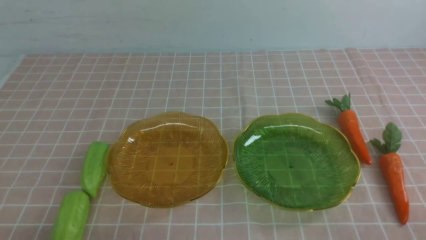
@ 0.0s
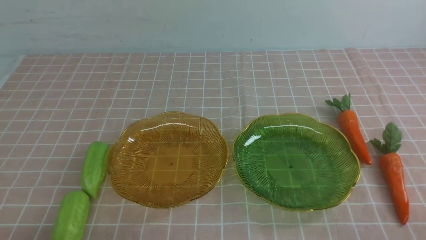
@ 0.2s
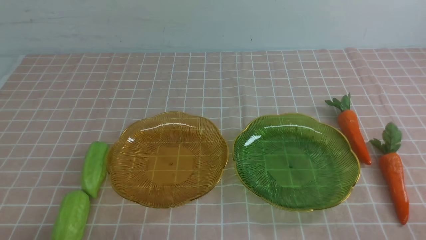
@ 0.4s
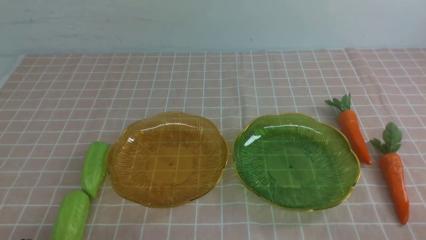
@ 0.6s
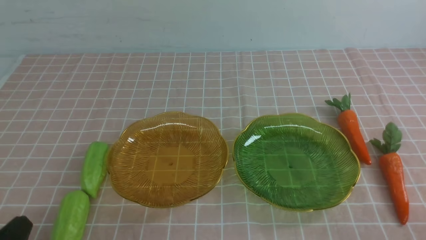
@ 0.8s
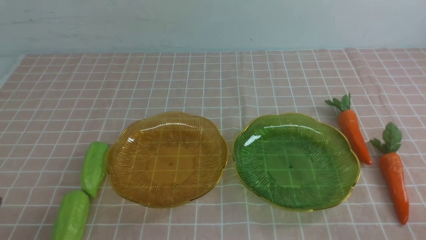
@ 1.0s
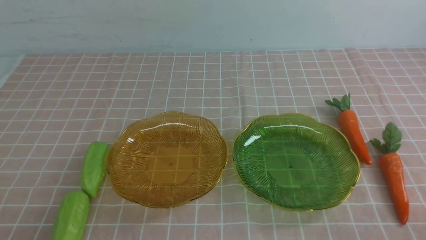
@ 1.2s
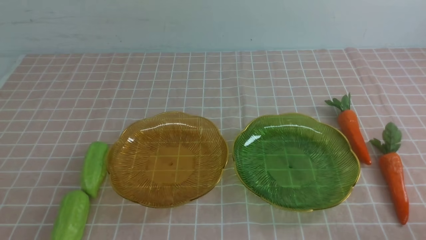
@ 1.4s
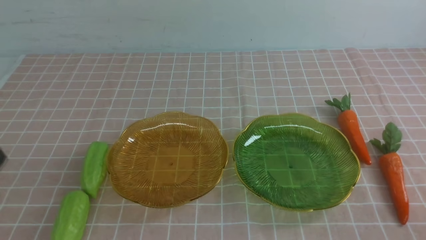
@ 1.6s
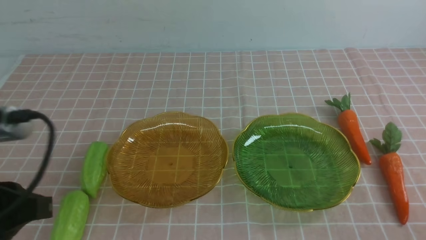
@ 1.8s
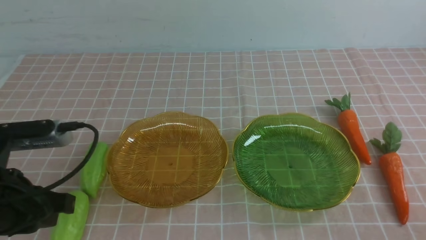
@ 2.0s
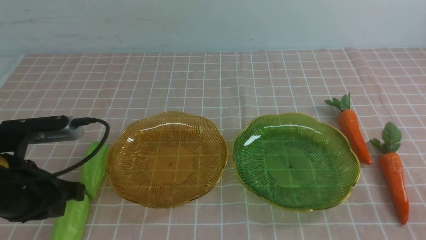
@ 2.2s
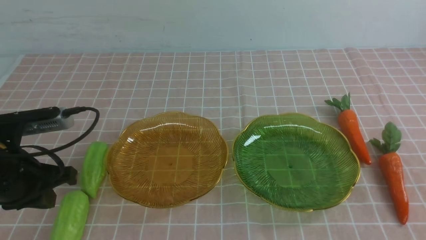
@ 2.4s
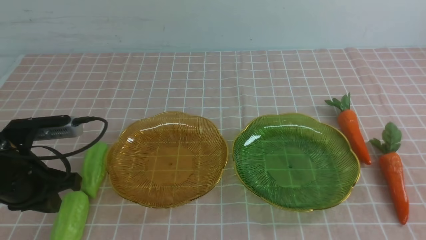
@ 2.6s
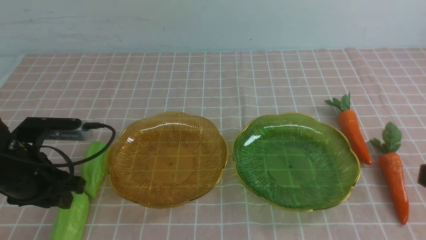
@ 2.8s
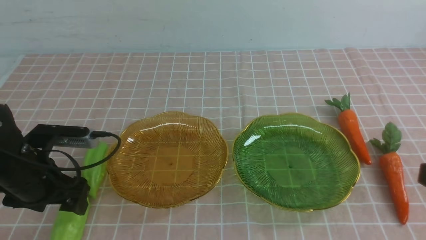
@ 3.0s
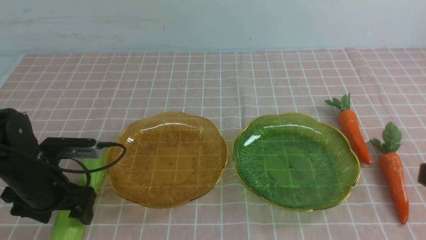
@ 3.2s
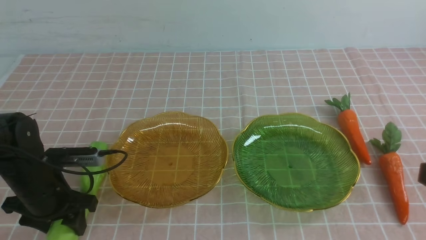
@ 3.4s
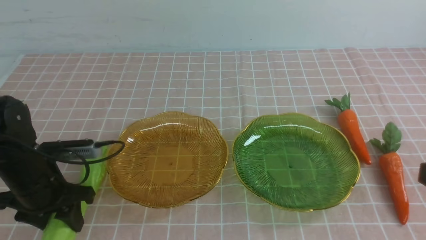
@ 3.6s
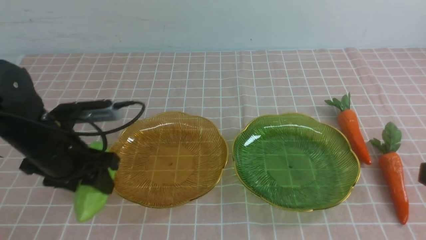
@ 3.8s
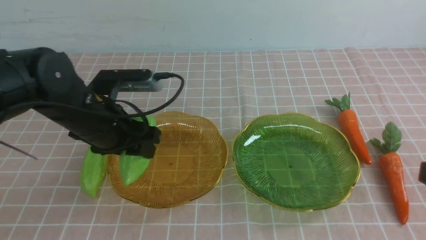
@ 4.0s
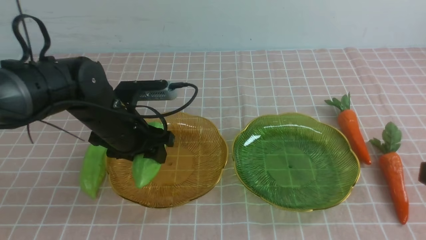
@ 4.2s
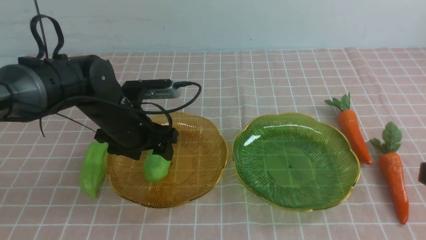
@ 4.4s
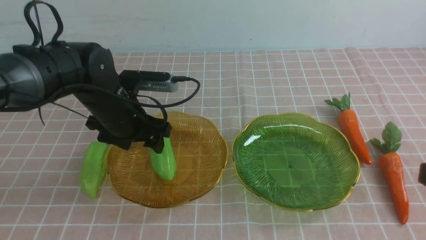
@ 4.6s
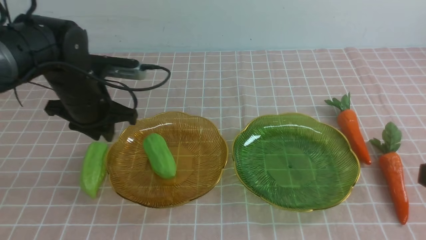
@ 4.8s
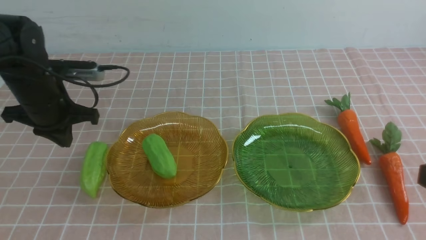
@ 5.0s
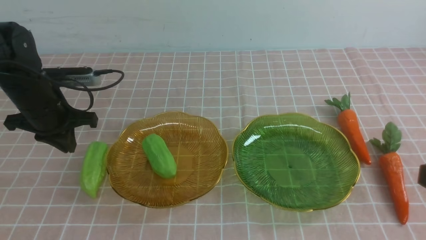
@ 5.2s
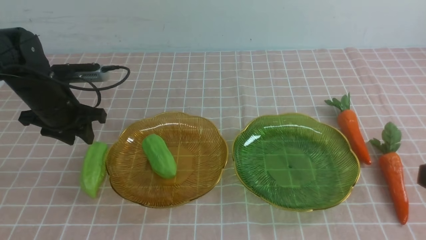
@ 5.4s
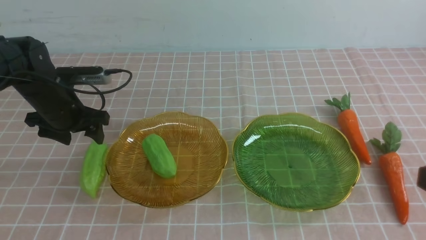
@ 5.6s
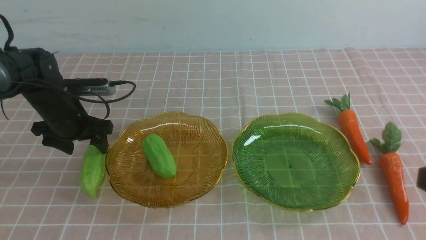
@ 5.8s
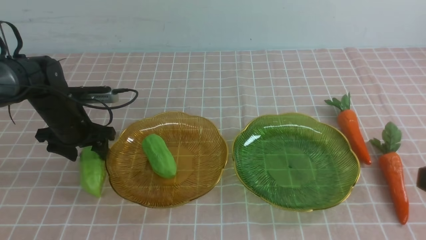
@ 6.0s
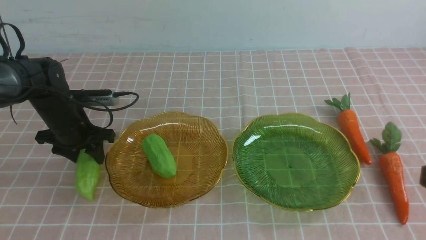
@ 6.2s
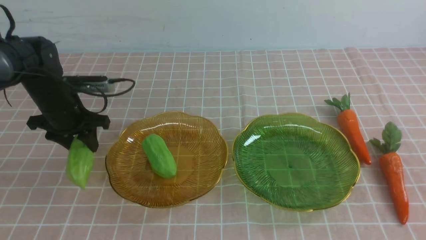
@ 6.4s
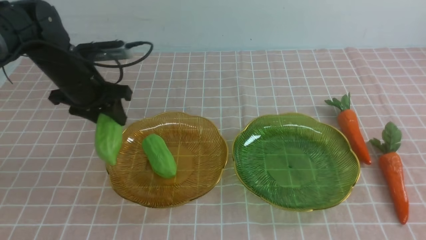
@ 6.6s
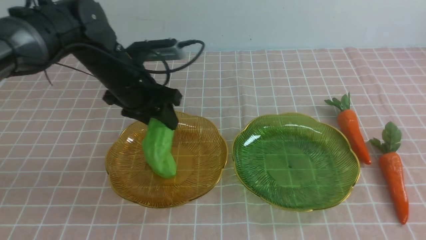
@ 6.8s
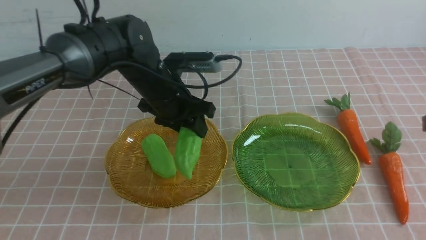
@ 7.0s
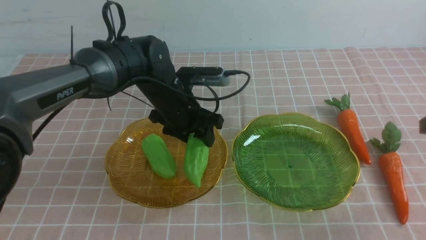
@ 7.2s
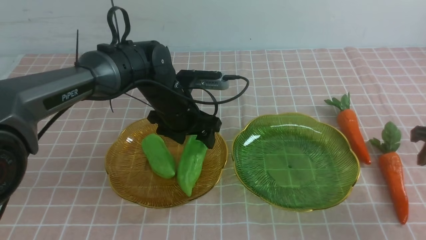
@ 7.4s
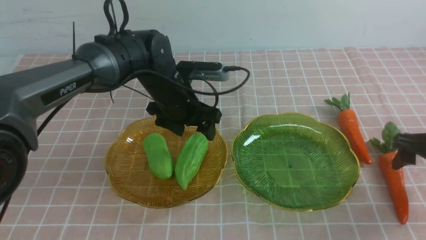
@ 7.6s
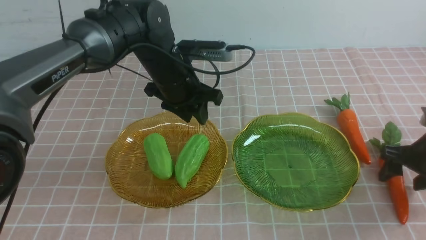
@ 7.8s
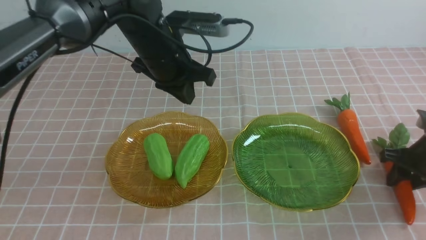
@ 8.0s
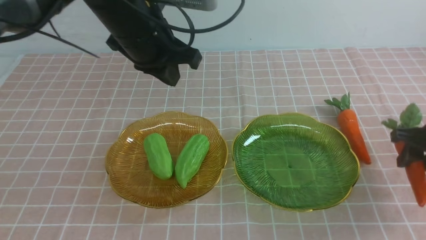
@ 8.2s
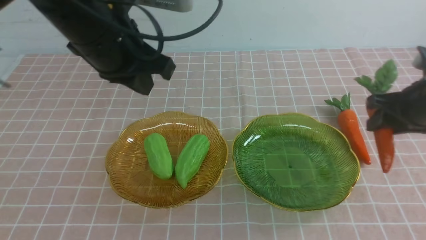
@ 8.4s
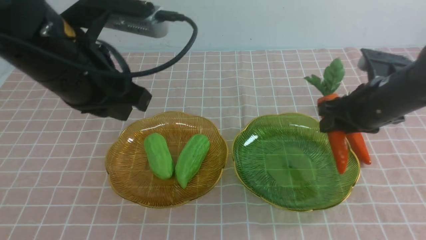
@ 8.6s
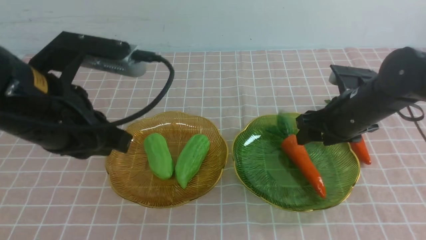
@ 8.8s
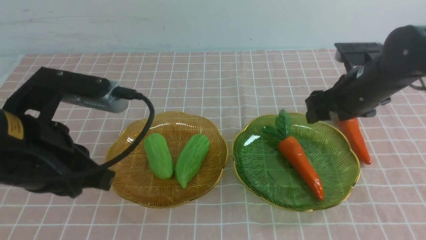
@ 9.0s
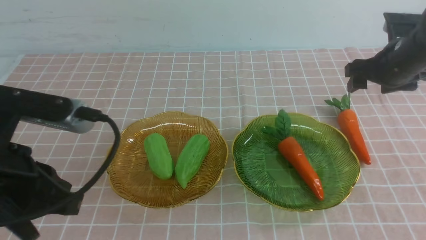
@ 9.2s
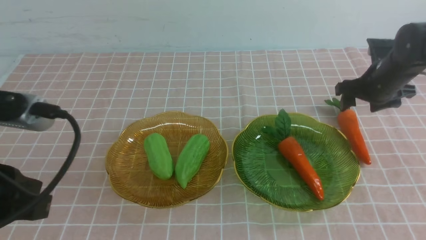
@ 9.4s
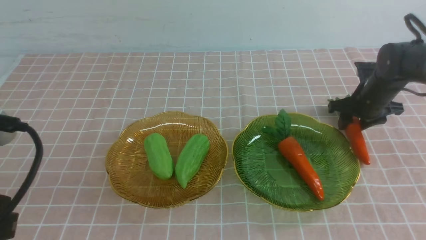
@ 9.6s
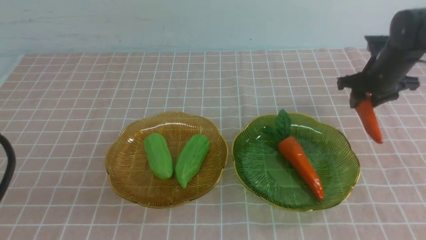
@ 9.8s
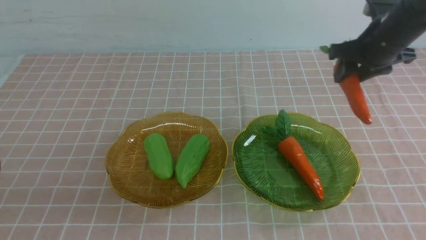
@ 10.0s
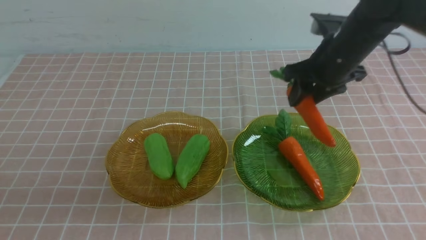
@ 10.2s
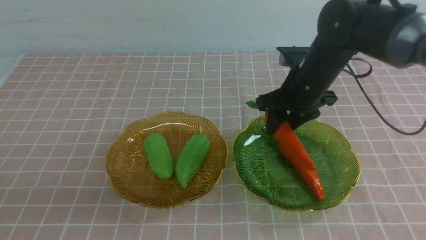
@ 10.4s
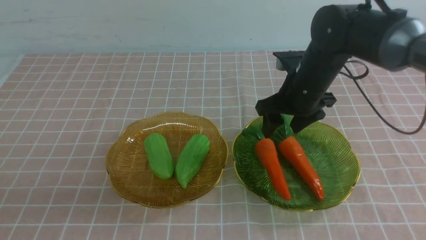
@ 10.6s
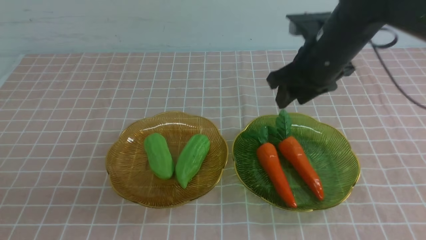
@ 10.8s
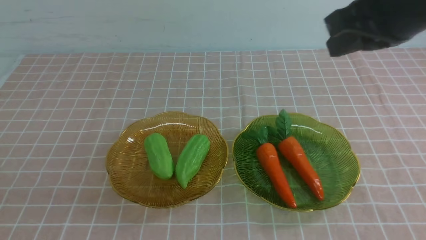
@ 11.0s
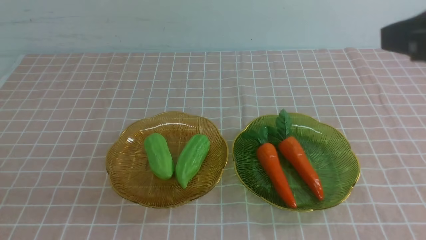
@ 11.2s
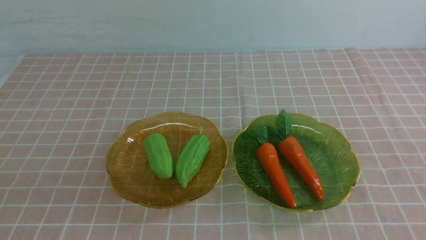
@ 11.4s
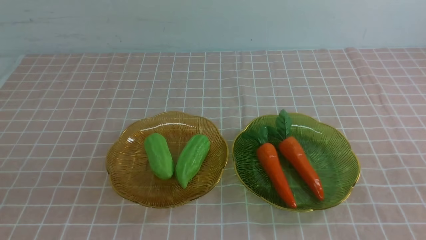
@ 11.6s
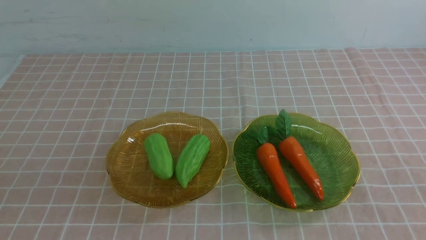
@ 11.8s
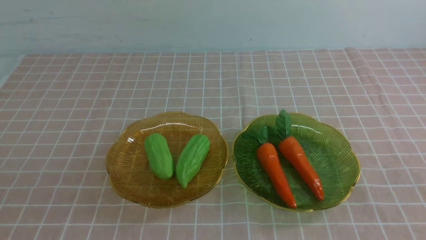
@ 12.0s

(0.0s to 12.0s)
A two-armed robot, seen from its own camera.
Step, 0.0s - 4.4s: use the left arm to grab a chayote and put it into the left plate.
Step, 4.8s - 7.4s: use the left arm to grab a chayote and put it into the left plate.
Step, 7.8s - 8.6s: use the right arm to grab a carrot and put it into the right plate.
Step, 9.0s - 10.4s: use the right arm to grab a carrot and put it into the right plate.
1.6s - 3.0s: The left gripper goes about 25 cm forward and downward, and opens up.
3.0s - 4.4s: The left gripper travels forward and upward by some 10 cm, reaches roughly 10 cm to the right, then returns, and closes up.
4.4s - 6.0s: The right gripper goes about 5 cm forward; the left gripper travels downward and back again, approximately 10 cm each way, and opens, then closes again.
6.0s - 7.6s: The left gripper is displaced upward, to the right and backward by about 20 cm, and closes. Meanwhile the right gripper is displaced forward and downward by about 20 cm, and opens.
7.6s - 9.0s: The left gripper travels backward and to the left by approximately 25 cm. The right gripper travels forward by some 10 cm.
9.0s - 10.4s: The right gripper goes about 35 cm backward and upward, and closes its fingers.
10.4s - 12.0s: The right gripper moves backward, downward and to the right, roughly 20 cm. Meanwhile the left gripper shifts approximately 5 cm downward.

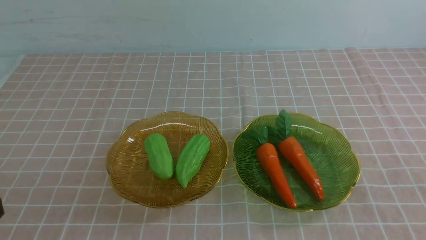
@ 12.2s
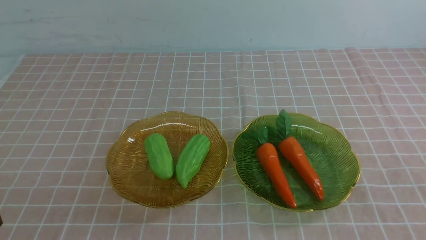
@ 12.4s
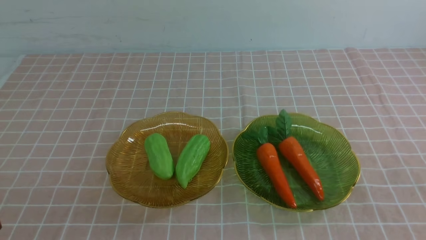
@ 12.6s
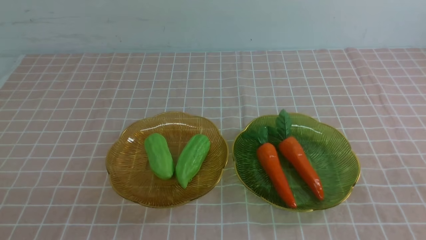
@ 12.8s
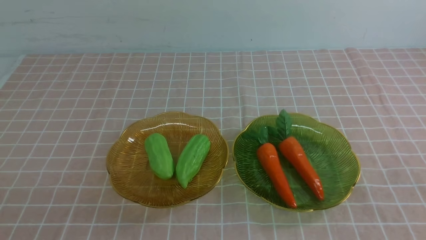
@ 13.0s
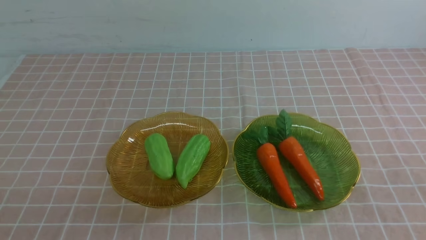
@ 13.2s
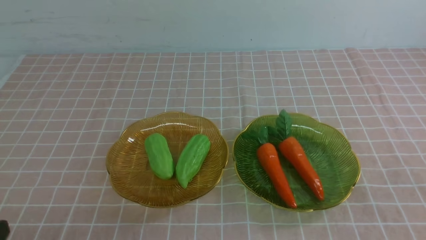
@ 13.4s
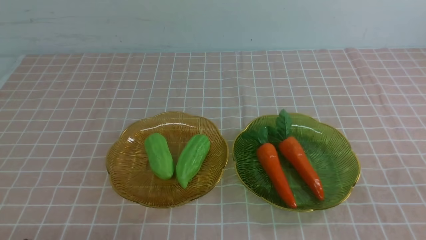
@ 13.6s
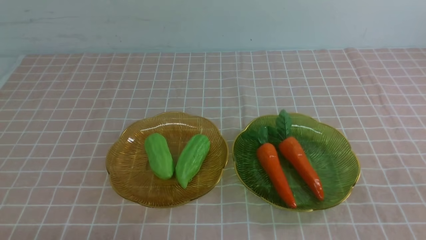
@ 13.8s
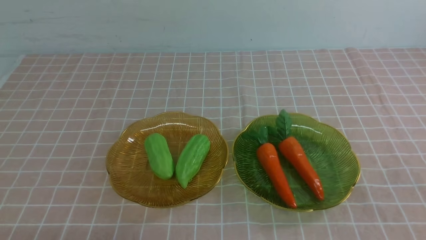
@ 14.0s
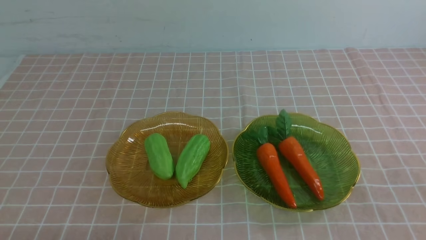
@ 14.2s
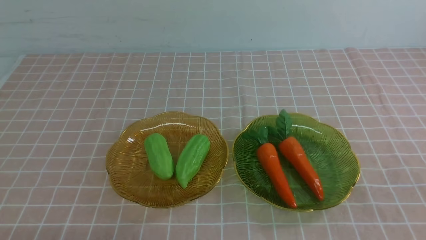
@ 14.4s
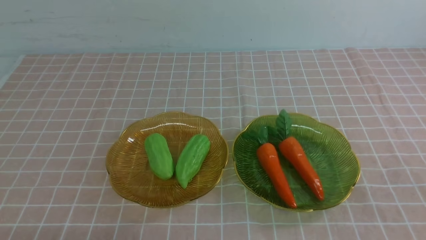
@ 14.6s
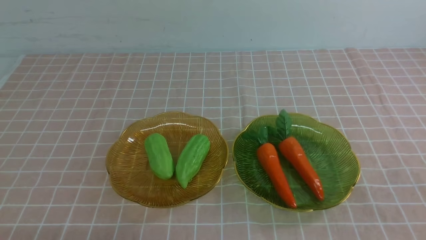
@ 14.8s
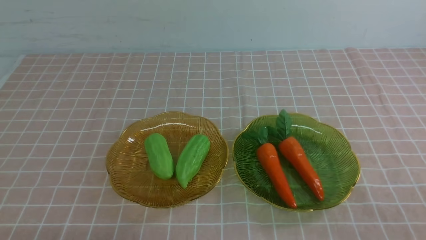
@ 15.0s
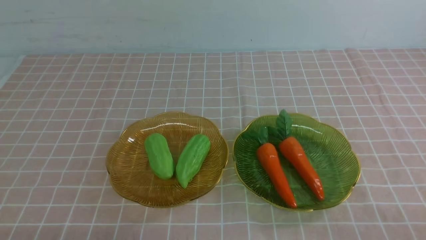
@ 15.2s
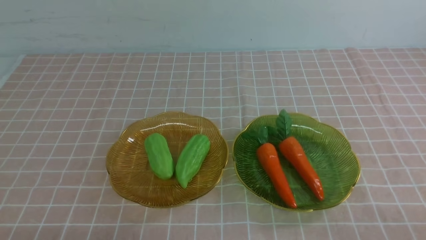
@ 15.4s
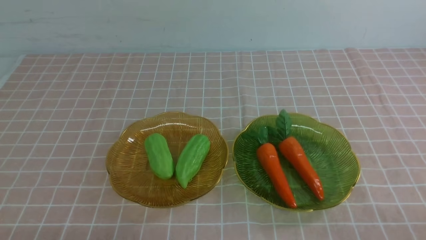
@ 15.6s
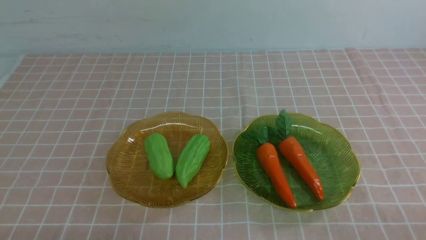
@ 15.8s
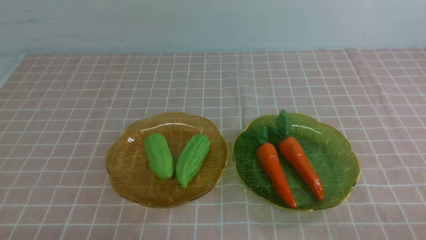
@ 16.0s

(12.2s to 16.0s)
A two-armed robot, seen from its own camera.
14.8s - 16.0s: The two grippers keep their place.

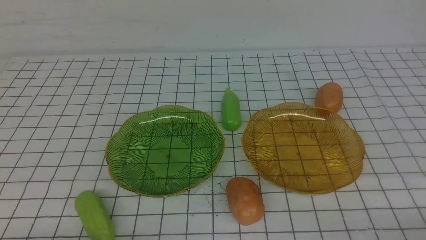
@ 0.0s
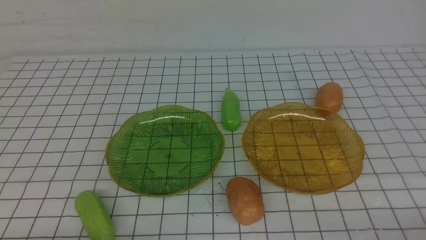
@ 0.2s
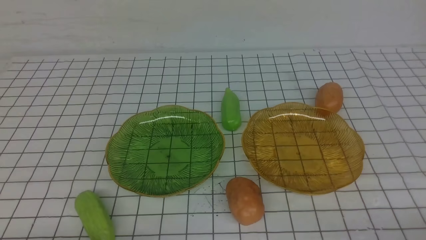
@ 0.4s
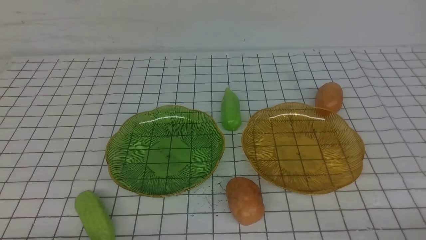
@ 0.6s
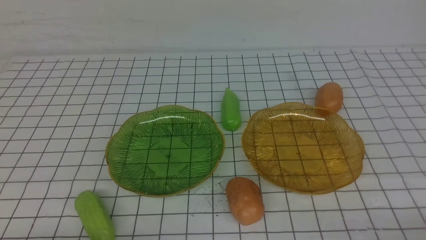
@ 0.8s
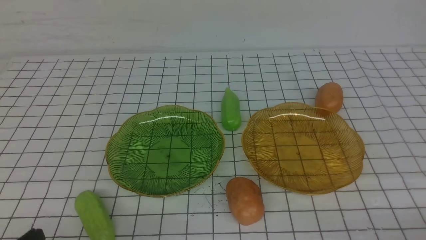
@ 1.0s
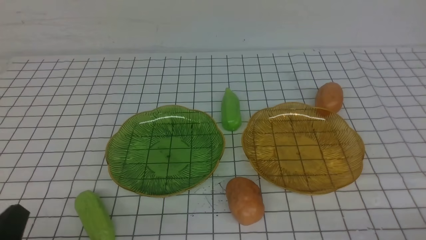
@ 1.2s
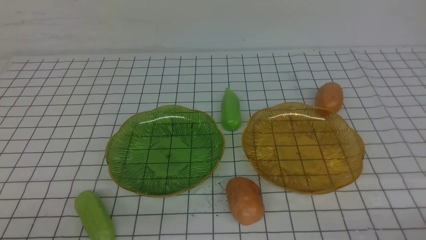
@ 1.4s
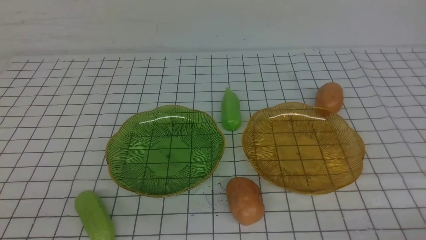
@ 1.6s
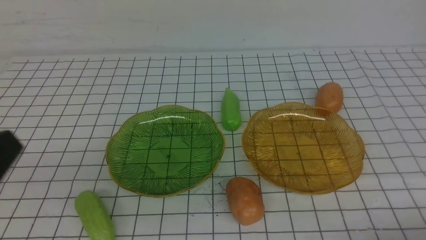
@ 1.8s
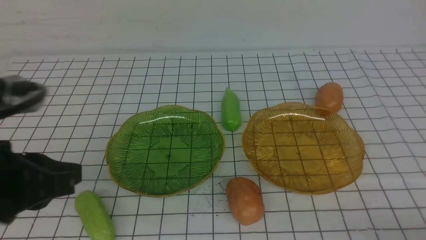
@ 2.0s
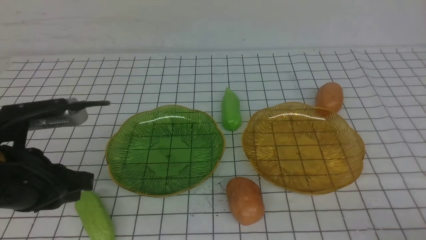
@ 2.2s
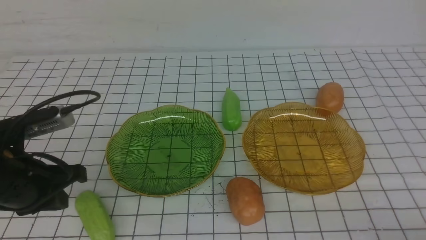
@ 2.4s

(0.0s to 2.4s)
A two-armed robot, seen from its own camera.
1.2s - 2.4s: The left gripper is displaced forward by roughly 15 cm.
